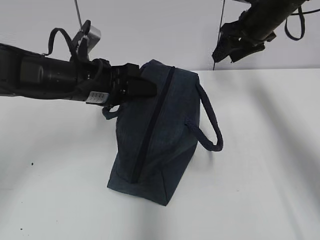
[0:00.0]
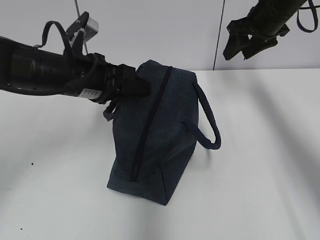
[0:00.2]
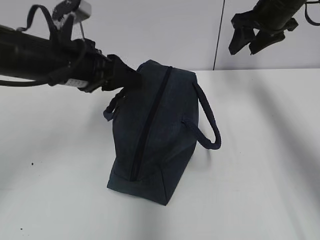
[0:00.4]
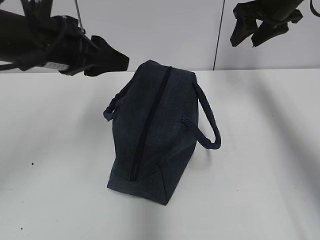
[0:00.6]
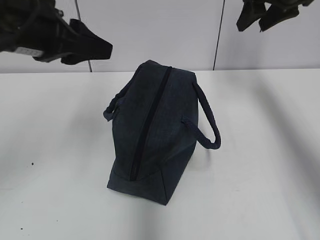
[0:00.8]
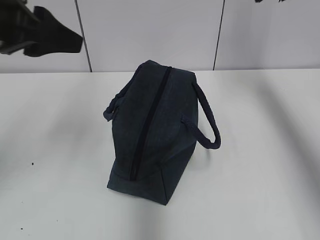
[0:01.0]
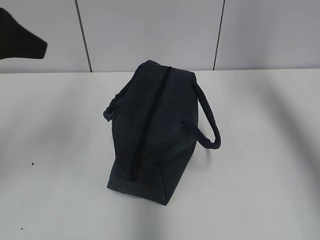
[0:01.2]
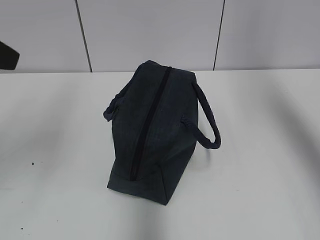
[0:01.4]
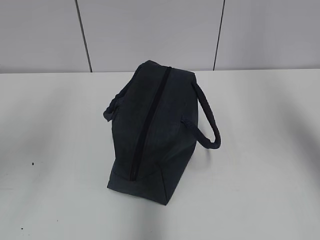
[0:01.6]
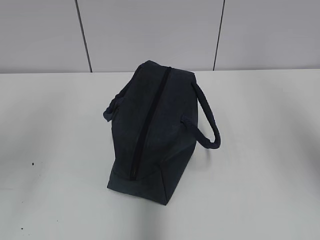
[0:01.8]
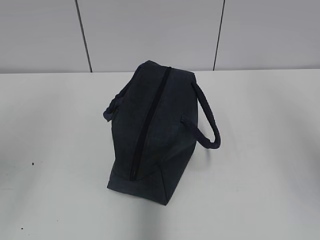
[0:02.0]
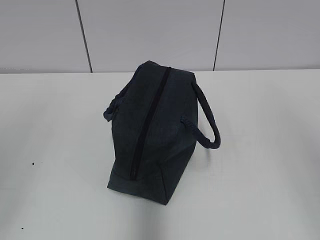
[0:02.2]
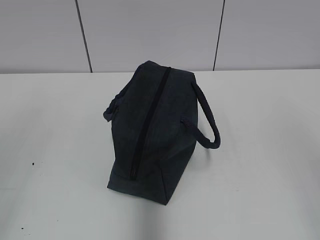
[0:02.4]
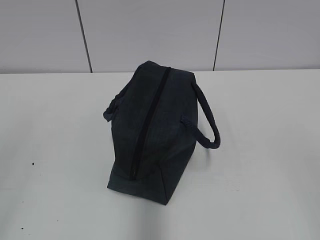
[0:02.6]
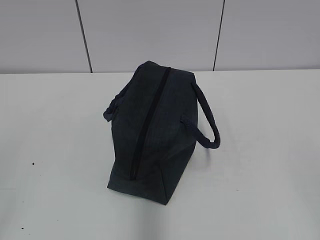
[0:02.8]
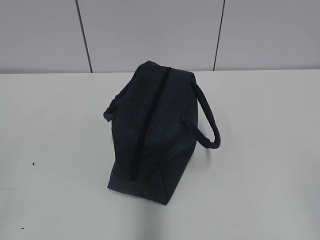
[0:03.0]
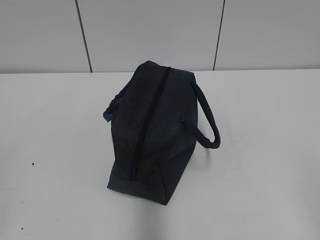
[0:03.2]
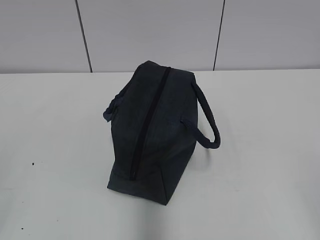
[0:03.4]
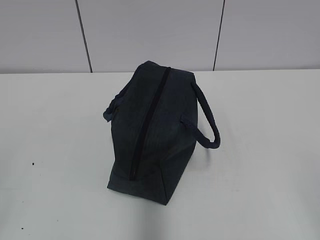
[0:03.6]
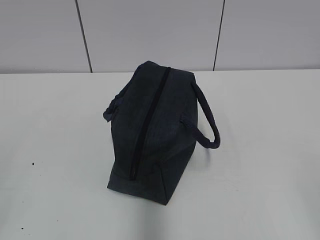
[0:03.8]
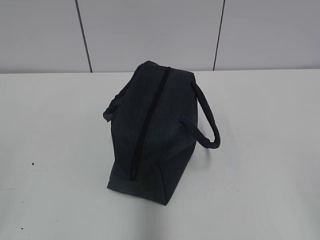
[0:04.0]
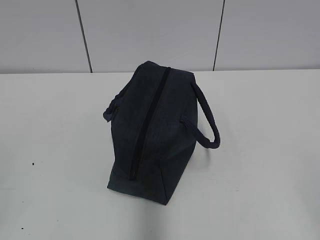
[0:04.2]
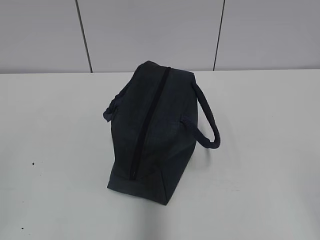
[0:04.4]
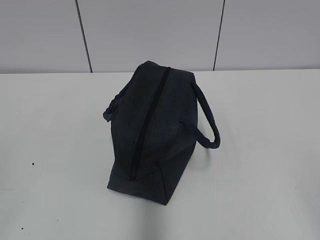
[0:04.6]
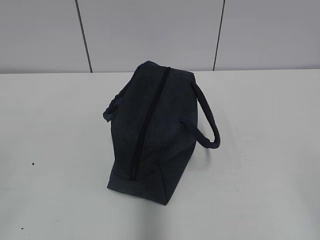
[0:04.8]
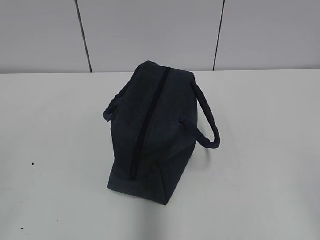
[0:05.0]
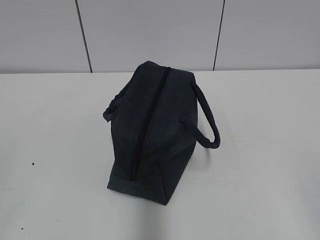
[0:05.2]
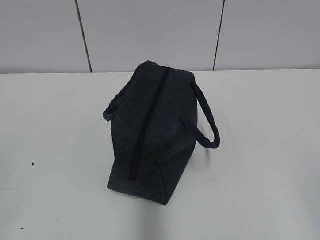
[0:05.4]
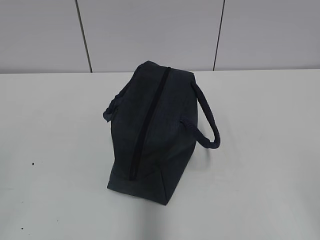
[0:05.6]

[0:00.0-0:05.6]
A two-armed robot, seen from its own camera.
0:00.0 to 0:01.4: The right gripper is displaced upward and backward by some 30 cm. Meanwhile the left gripper heads upward, backward and to the left, covering roughly 25 cm.
0:01.4 to 0:02.8: The left gripper heads backward, covering some 20 cm. Meanwhile the right gripper goes some 35 cm backward and downward.

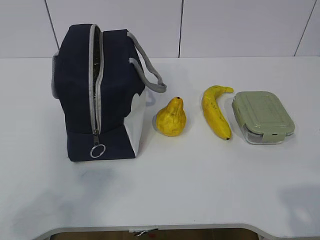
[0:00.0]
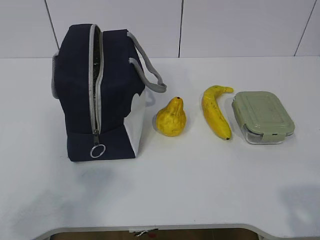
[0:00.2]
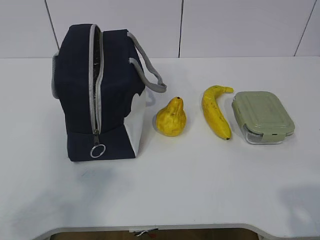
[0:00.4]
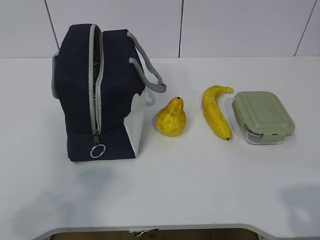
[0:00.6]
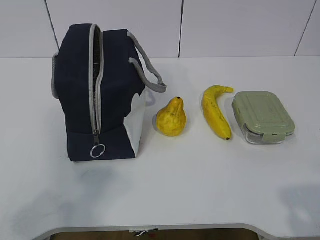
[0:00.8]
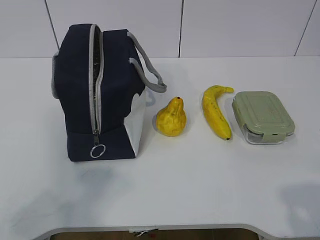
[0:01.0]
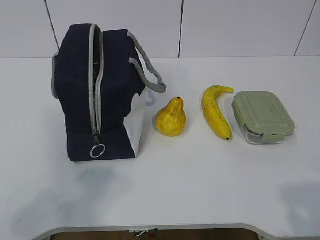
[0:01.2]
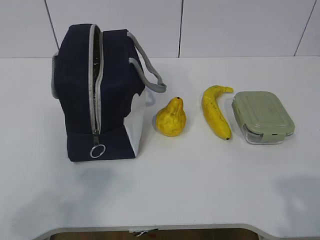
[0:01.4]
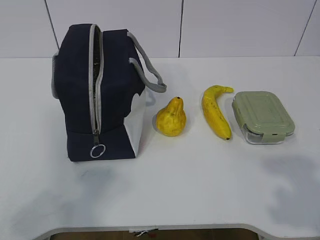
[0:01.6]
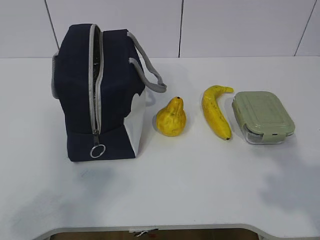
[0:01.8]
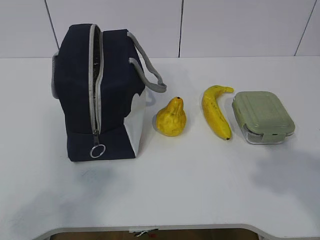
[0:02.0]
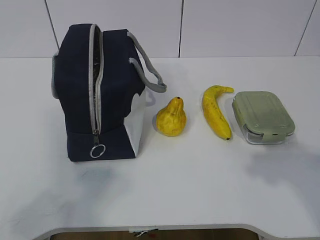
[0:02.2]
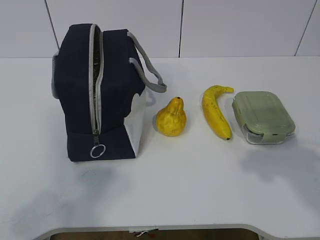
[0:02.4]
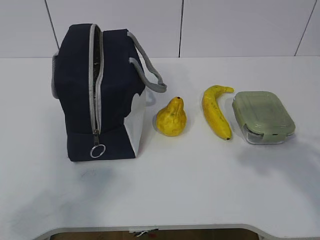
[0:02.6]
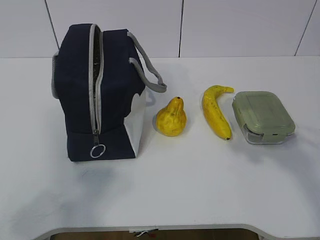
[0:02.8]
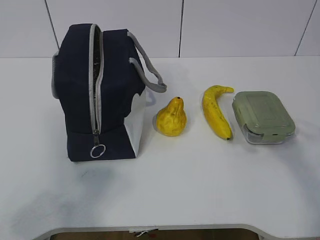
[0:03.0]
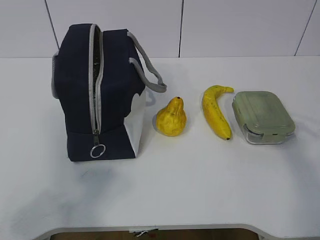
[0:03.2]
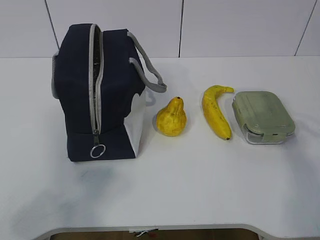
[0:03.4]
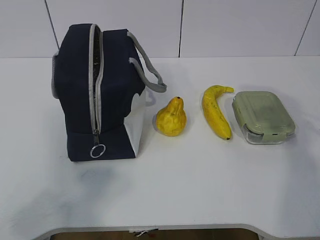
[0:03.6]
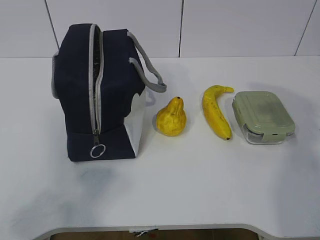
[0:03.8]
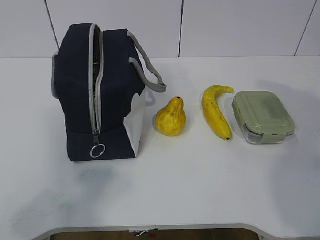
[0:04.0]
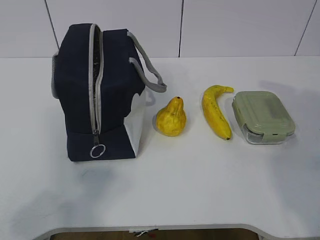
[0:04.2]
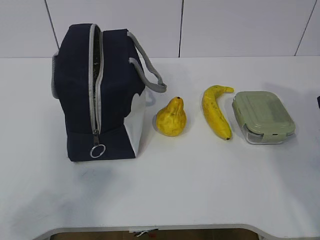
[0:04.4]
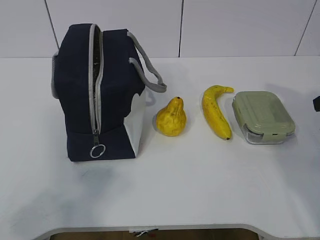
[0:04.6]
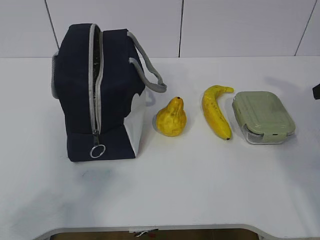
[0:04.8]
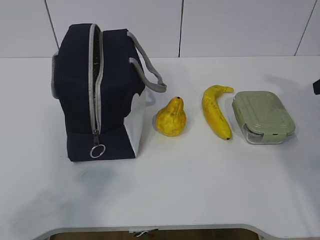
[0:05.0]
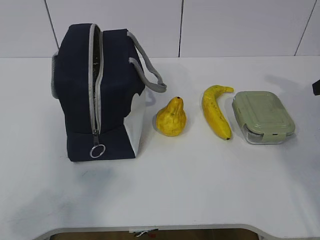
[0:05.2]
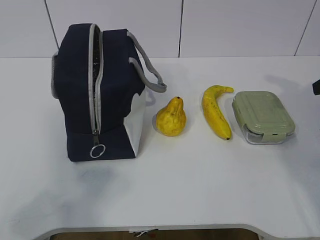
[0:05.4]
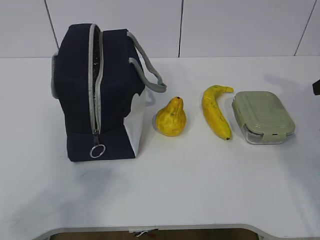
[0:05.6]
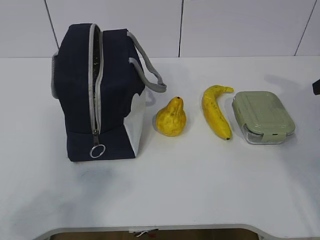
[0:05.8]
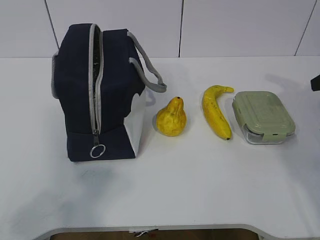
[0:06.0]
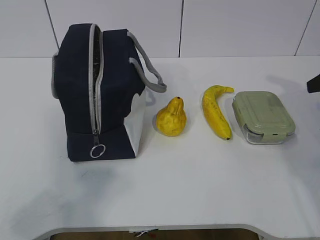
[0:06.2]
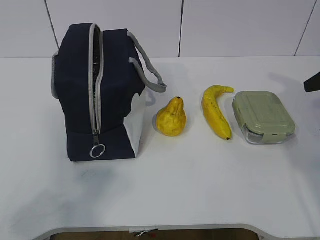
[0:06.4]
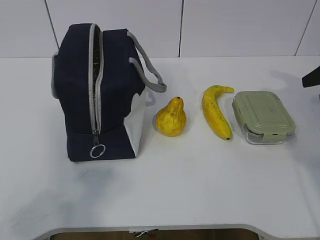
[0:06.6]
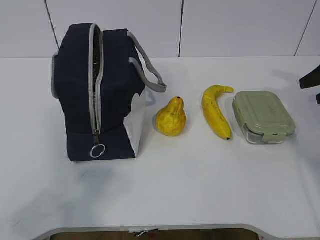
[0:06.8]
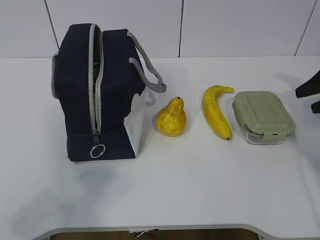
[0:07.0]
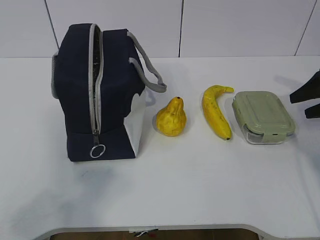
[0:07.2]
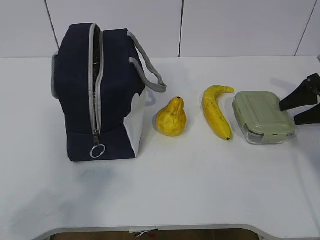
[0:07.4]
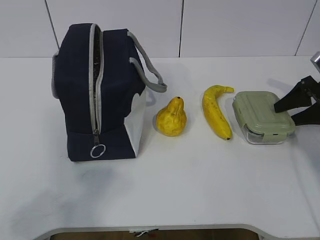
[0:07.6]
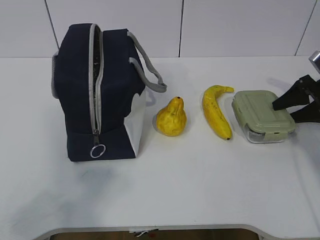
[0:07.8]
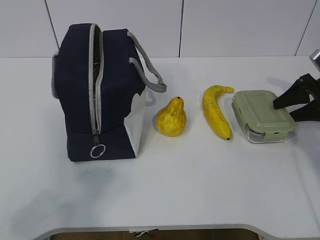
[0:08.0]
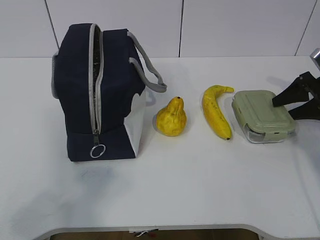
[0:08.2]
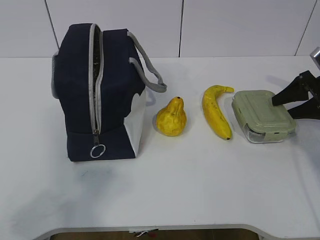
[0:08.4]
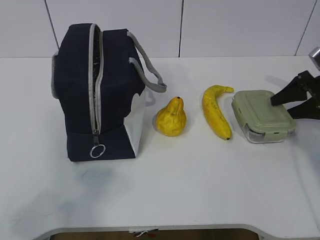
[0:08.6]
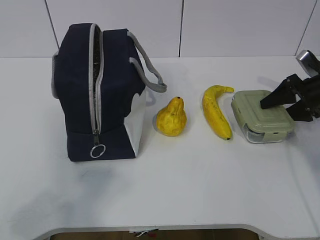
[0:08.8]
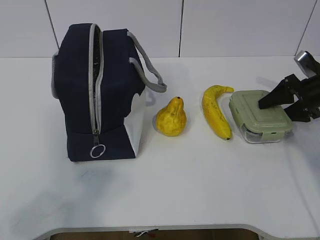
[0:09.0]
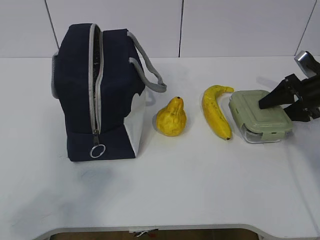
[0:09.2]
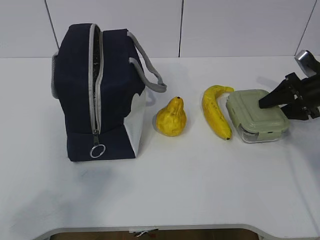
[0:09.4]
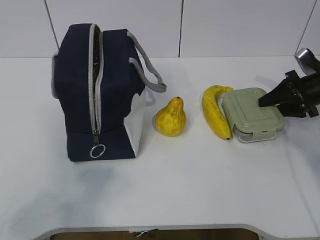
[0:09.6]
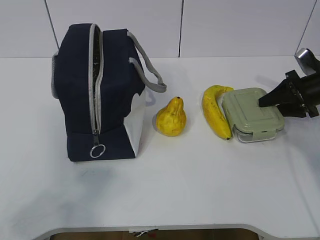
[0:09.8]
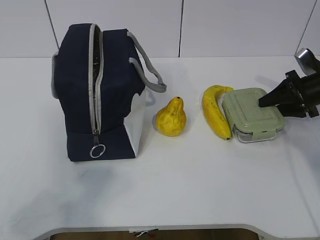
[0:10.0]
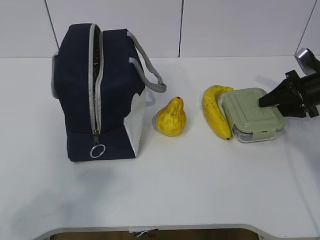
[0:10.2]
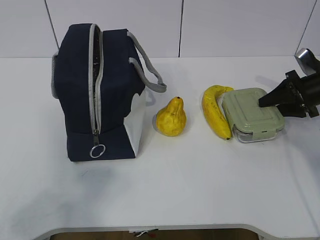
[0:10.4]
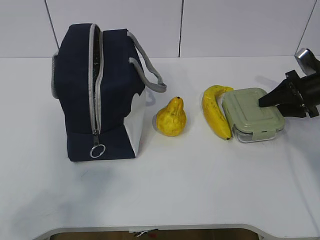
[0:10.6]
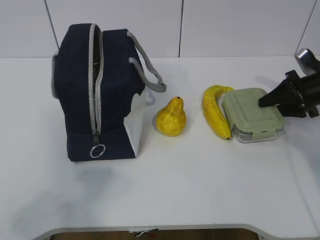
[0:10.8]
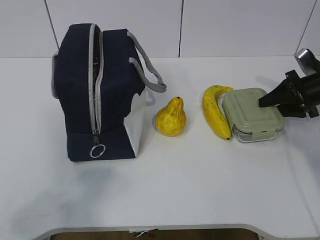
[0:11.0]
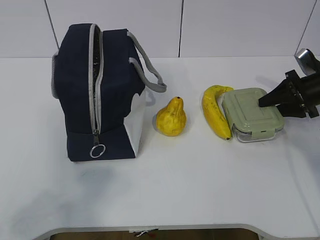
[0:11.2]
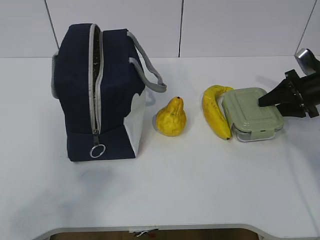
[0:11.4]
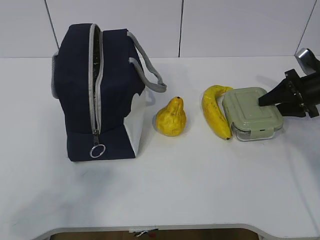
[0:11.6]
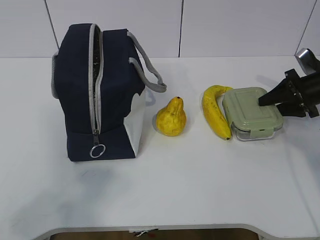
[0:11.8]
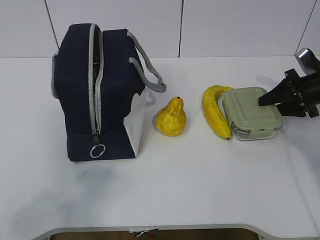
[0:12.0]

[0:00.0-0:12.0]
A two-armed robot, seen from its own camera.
Step, 0:00.0 to 0:10.2: Grab the lunch box with your right hand.
0:01.6 to 0:03.0: The right gripper goes some 20 cm forward.
0:06.0 to 0:07.6: The right gripper heads downward and forward, covering some 15 cm.
0:07.6 to 0:09.0: The grippers make only small movements.
0:09.0 to 0:10.4: The right gripper closes up.
0:10.4 to 0:12.0: The two grippers keep their place.

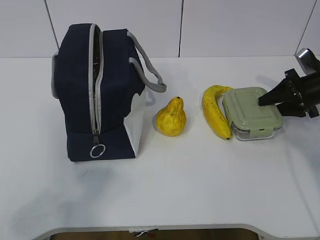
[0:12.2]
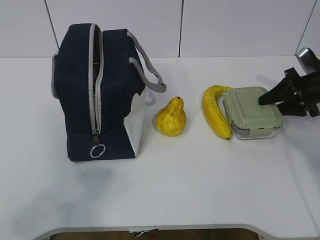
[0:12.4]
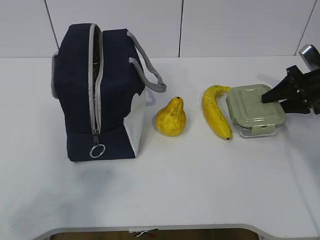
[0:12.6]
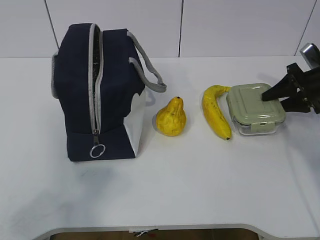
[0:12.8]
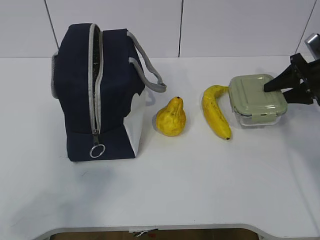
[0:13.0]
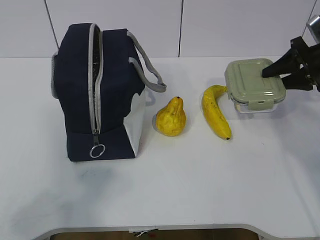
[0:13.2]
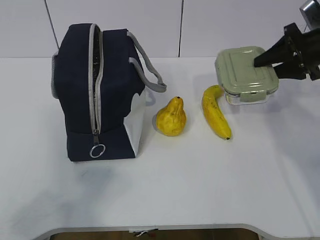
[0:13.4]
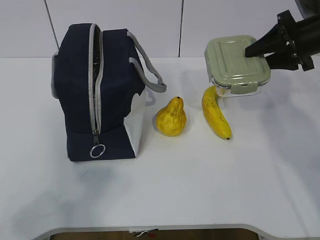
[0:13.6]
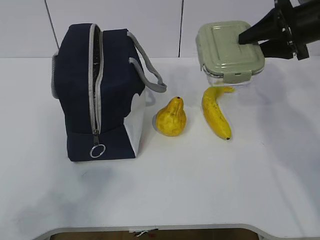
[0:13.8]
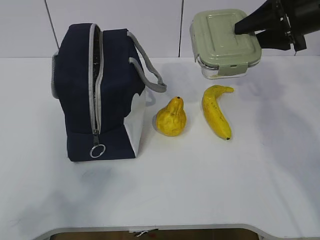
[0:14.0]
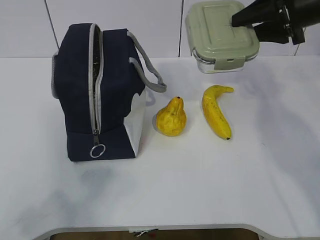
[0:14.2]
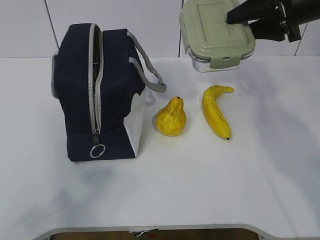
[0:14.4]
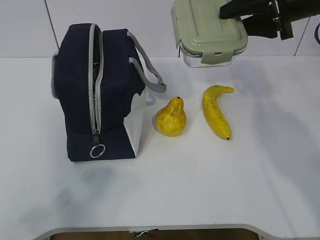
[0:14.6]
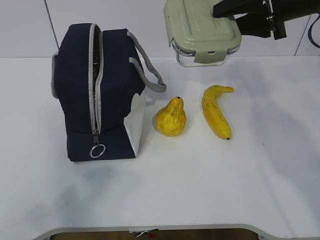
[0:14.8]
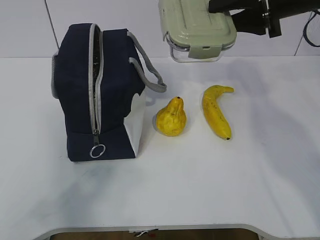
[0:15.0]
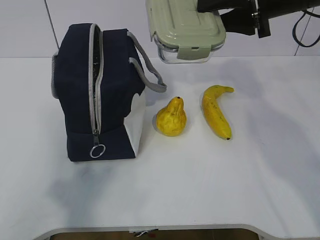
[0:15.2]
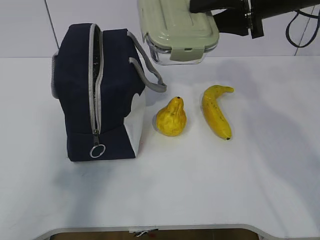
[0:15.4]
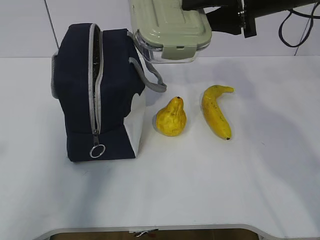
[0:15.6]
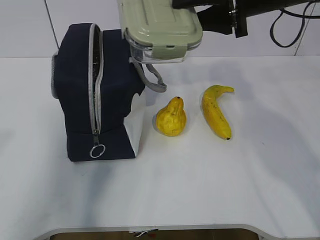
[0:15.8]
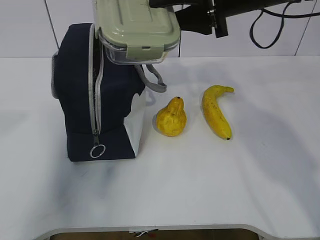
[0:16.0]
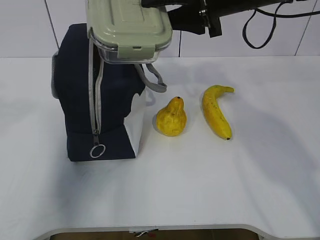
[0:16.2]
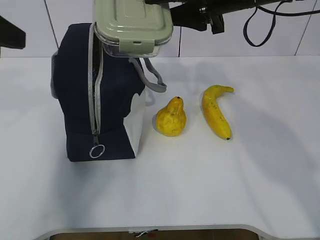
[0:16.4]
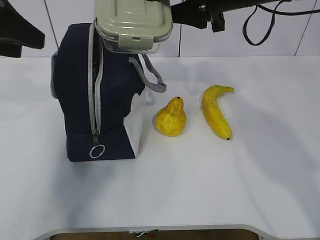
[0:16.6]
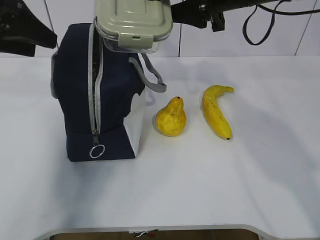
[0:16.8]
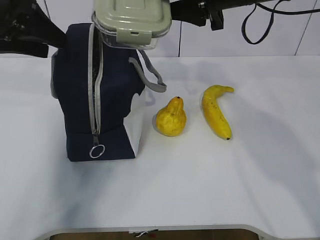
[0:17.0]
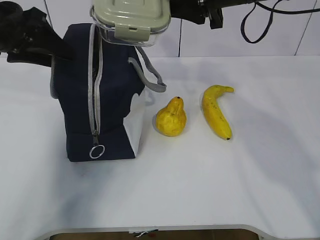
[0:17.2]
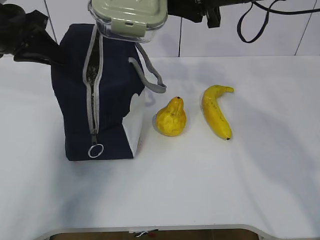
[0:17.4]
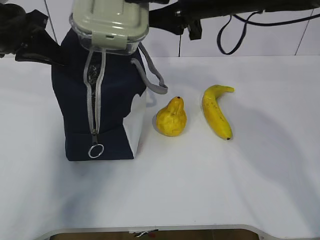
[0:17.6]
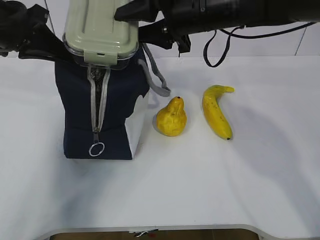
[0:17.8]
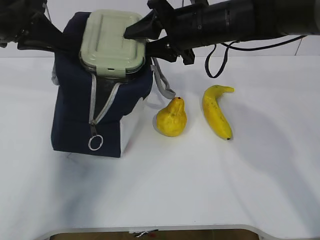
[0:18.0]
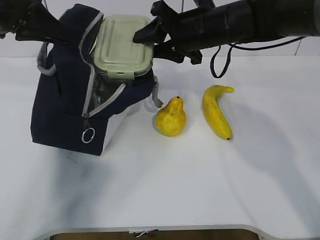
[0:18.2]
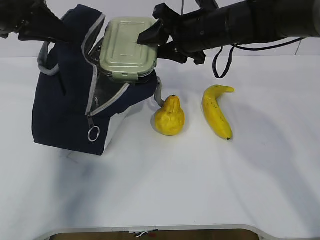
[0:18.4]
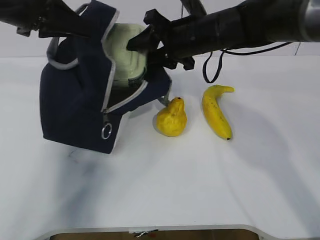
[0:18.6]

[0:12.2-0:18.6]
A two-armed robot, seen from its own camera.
Step, 0:14.8 to 0:16.8: Place it into the bag with your right hand.
0:12.2 to 0:13.8: The right gripper shifts approximately 15 cm upward and to the left.
0:13.8 to 0:15.4: The right gripper is displaced to the left and upward by roughly 10 cm. Meanwhile the left gripper travels forward by roughly 5 cm.
0:15.4 to 0:17.0: The right gripper travels to the left by about 5 cm, while the left gripper goes roughly 30 cm forward.
0:17.0 to 0:18.6: The left gripper closes its fingers. The right gripper is displaced downward by about 10 cm.
